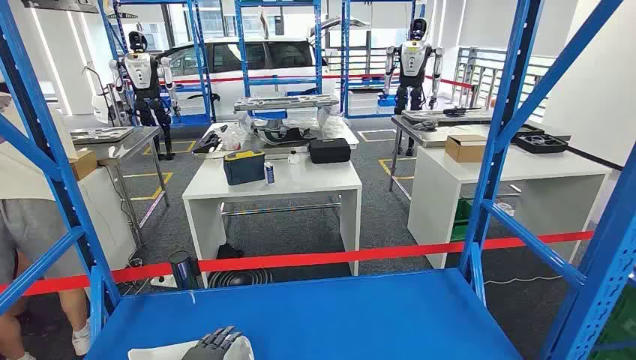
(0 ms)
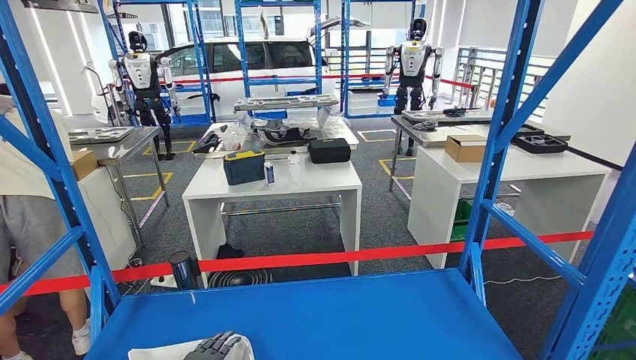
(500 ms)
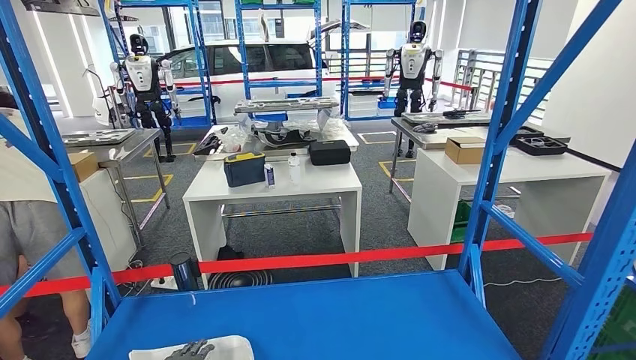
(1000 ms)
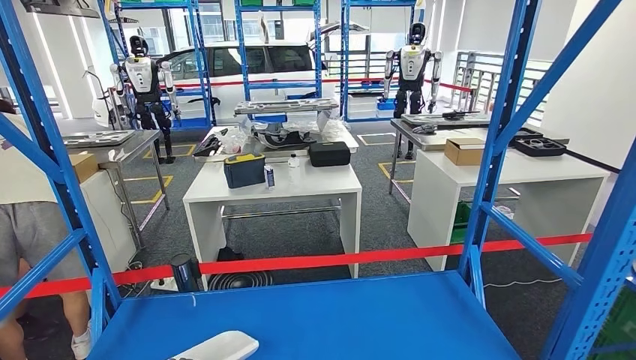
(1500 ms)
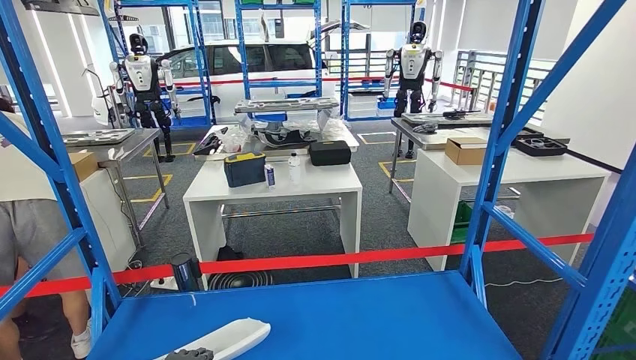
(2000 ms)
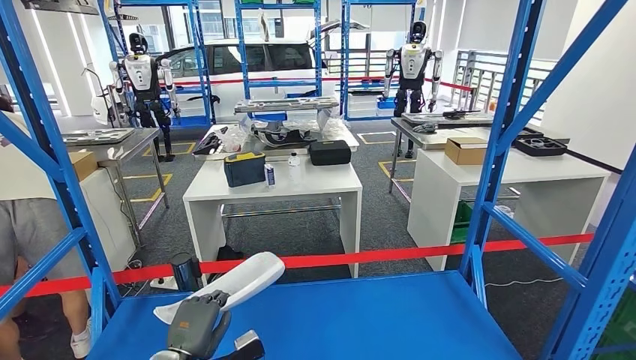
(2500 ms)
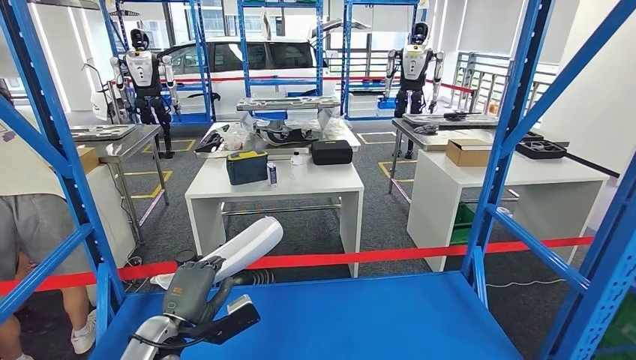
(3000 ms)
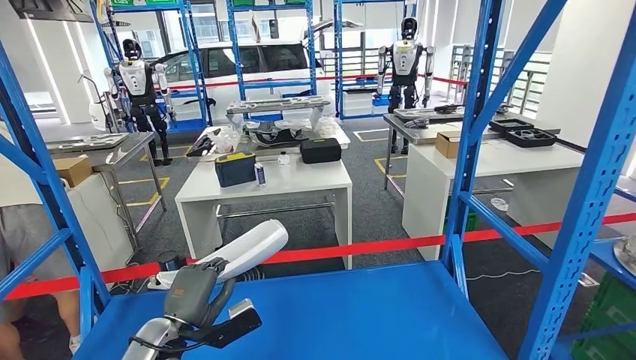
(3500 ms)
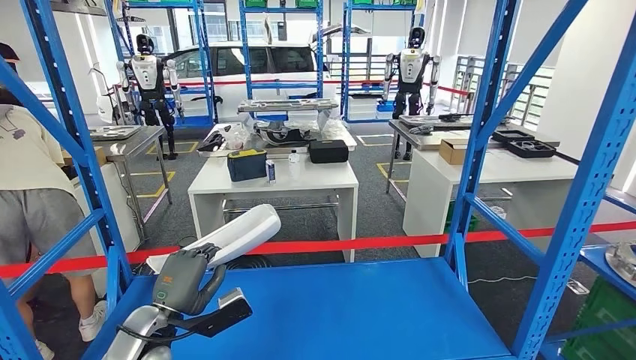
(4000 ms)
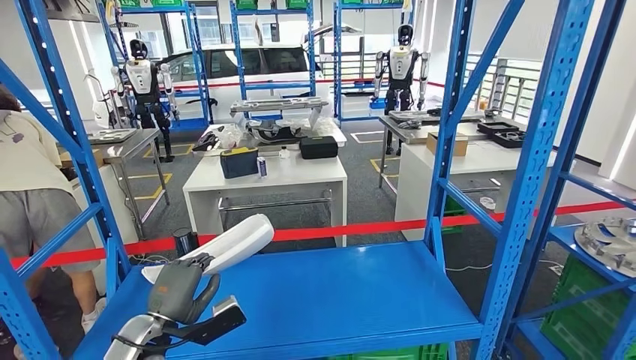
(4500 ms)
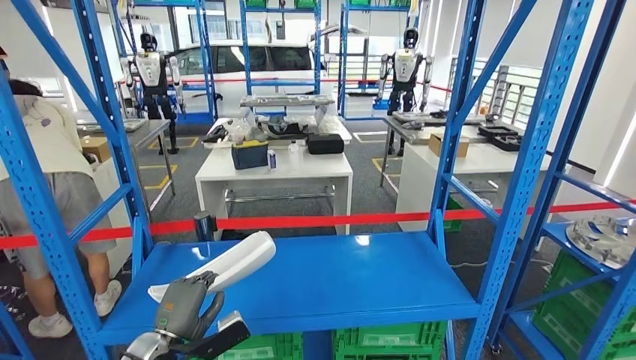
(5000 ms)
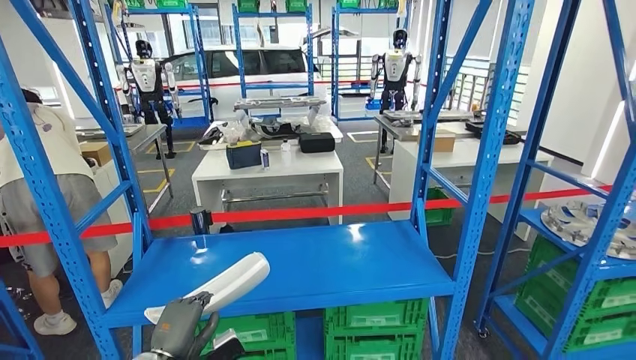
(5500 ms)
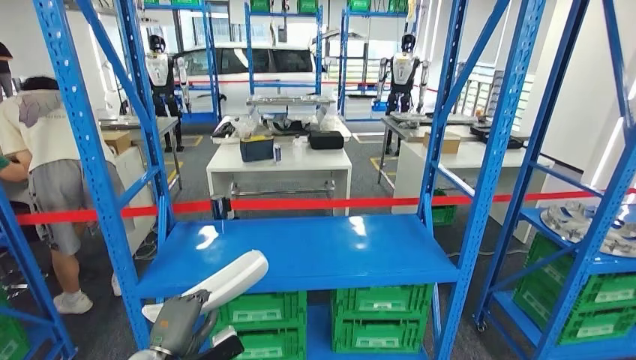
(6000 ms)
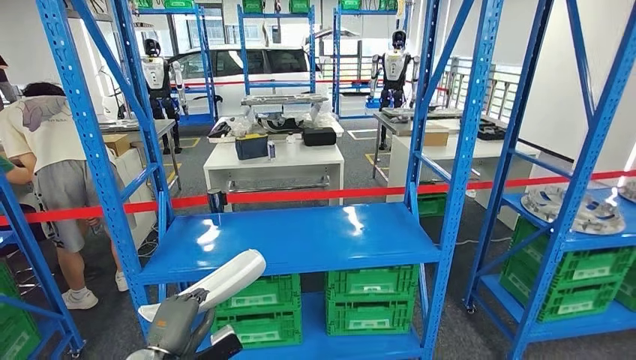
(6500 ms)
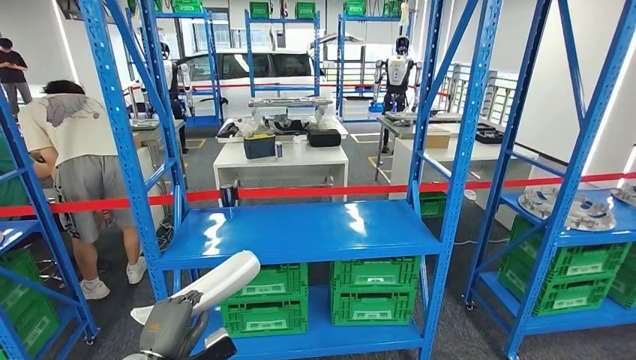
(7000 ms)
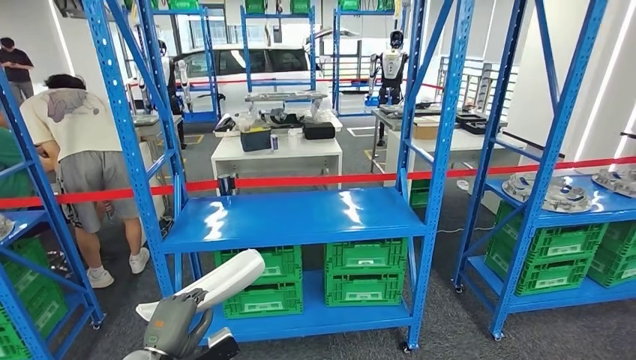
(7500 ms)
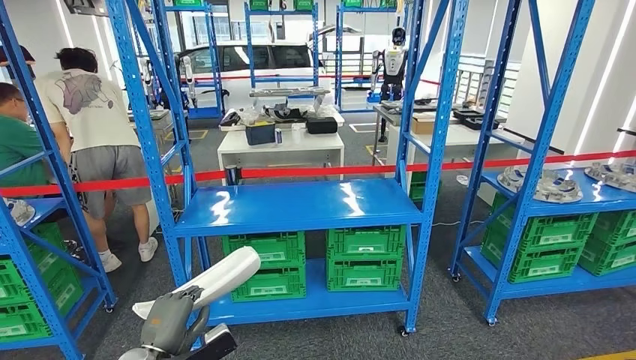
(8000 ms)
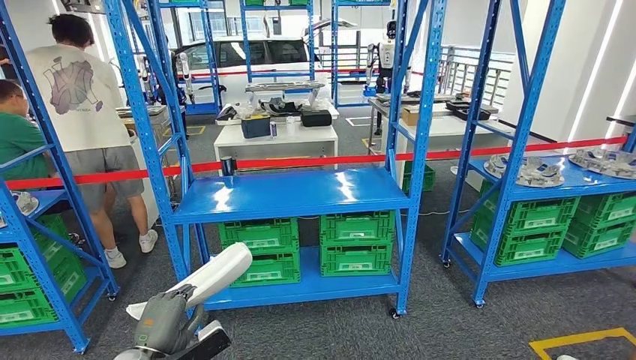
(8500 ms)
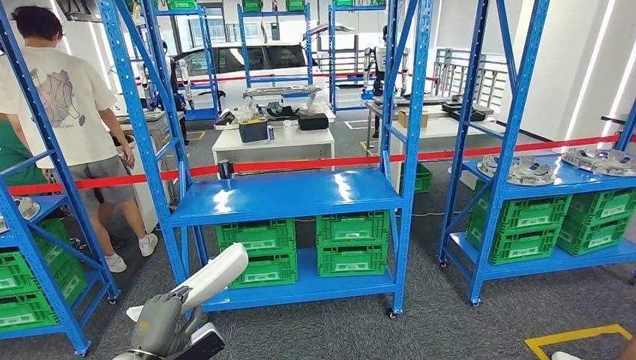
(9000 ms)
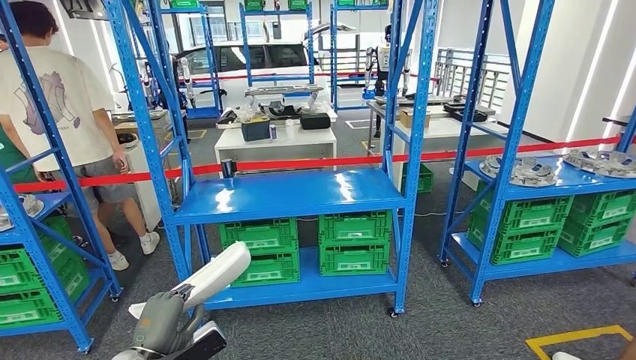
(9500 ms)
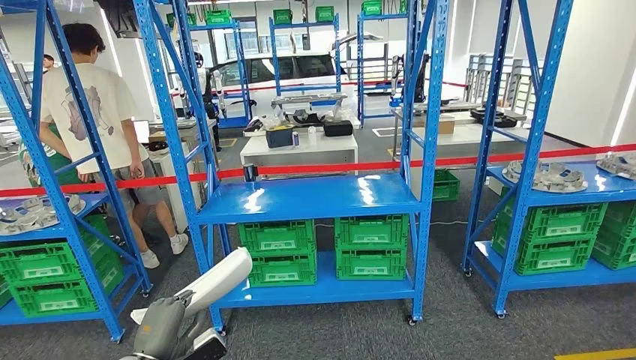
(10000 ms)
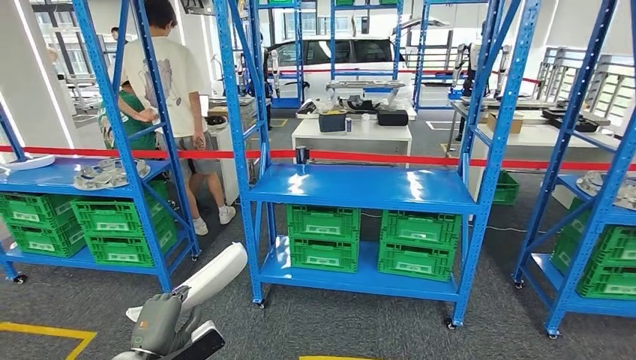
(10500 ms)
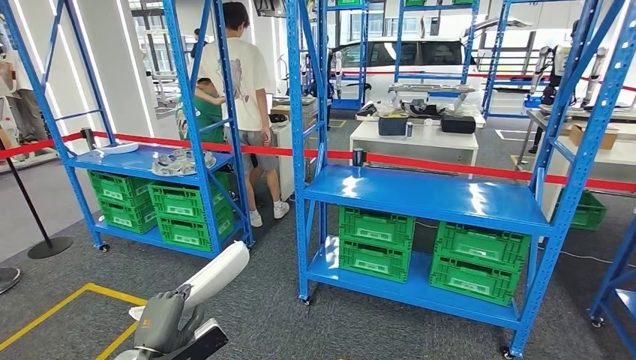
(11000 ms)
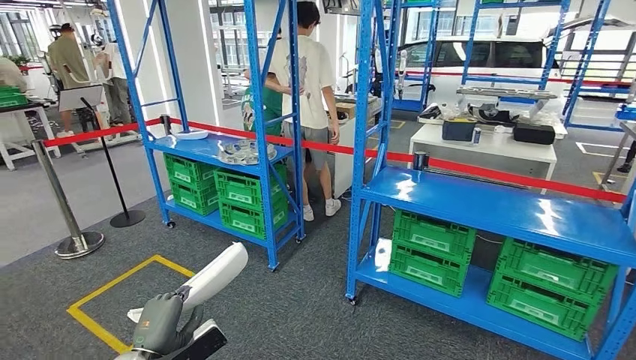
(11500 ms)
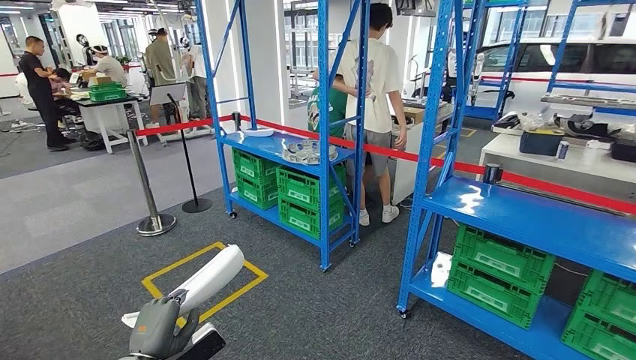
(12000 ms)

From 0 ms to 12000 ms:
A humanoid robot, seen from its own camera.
Step, from 0 ms to 2000 ms: Pick up the small component from the shelf.

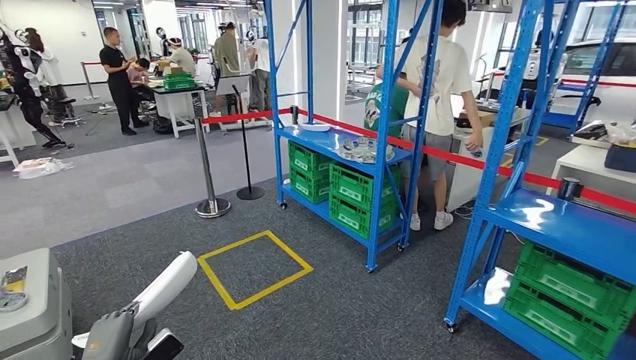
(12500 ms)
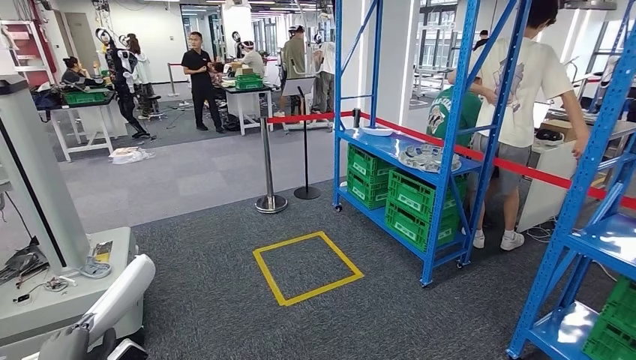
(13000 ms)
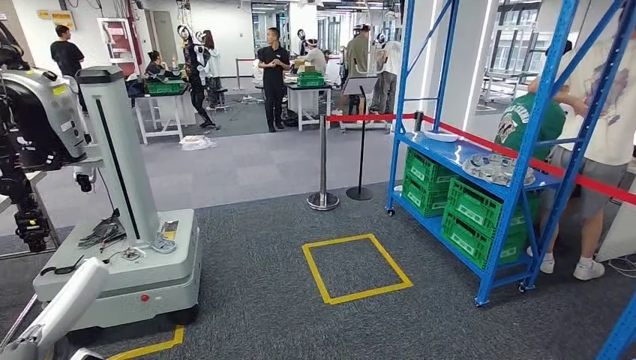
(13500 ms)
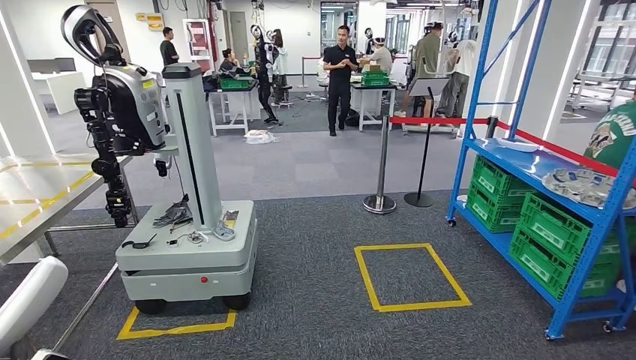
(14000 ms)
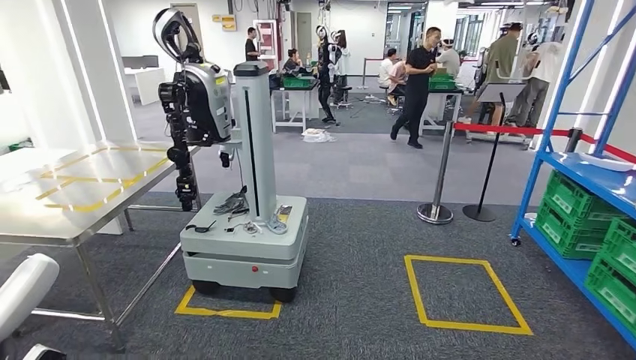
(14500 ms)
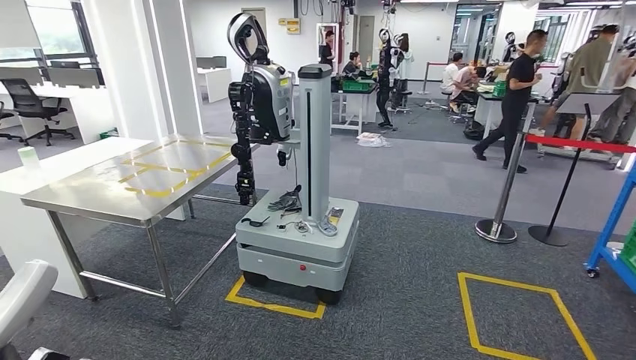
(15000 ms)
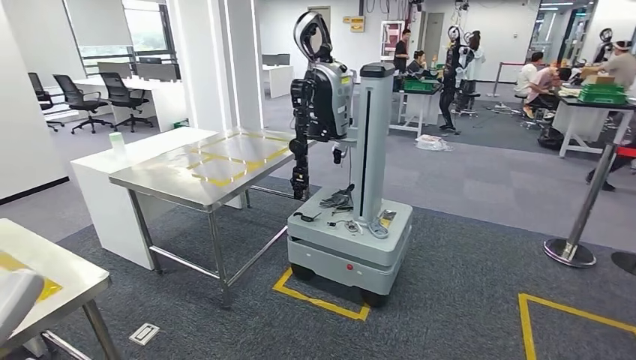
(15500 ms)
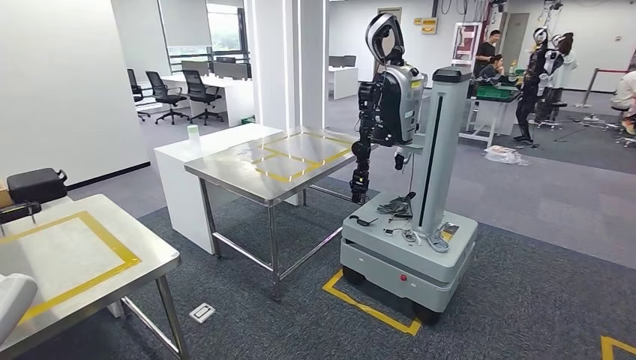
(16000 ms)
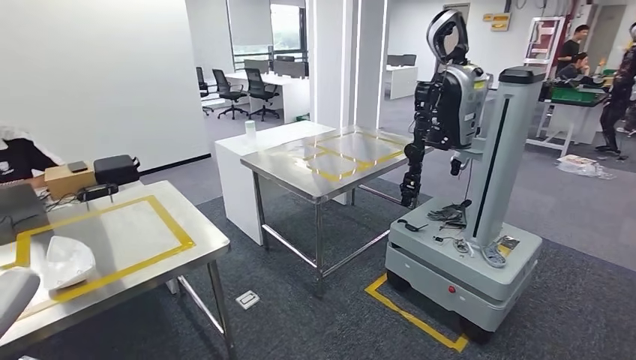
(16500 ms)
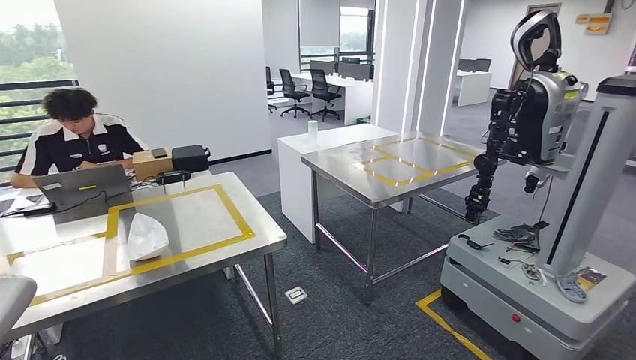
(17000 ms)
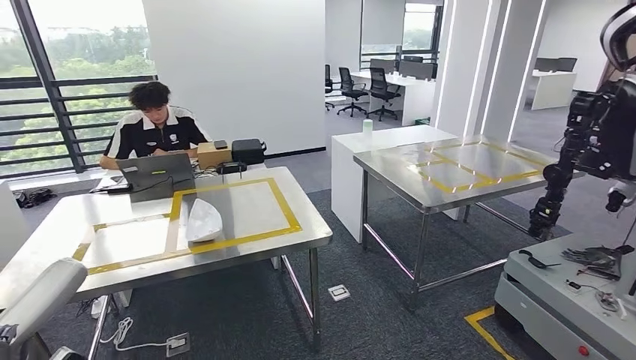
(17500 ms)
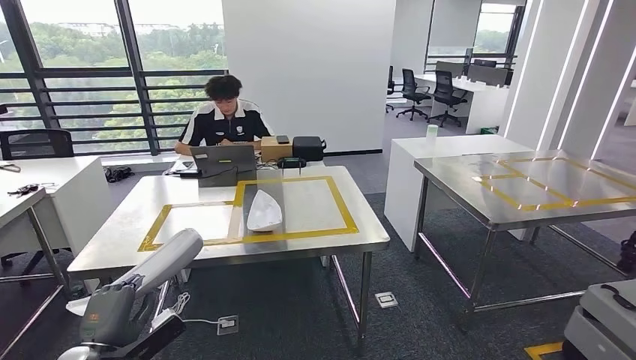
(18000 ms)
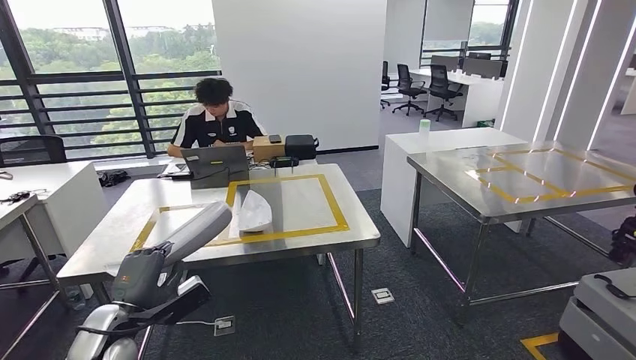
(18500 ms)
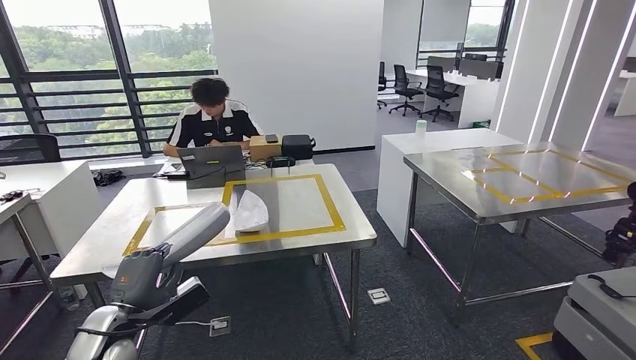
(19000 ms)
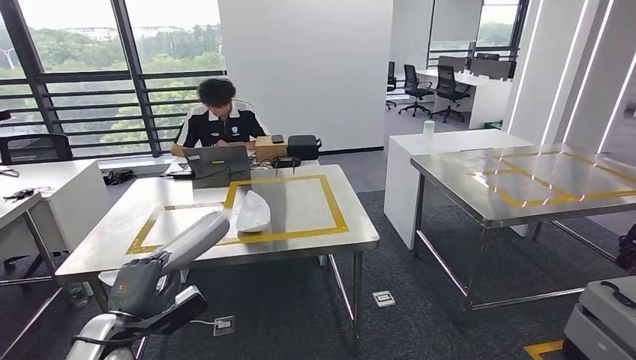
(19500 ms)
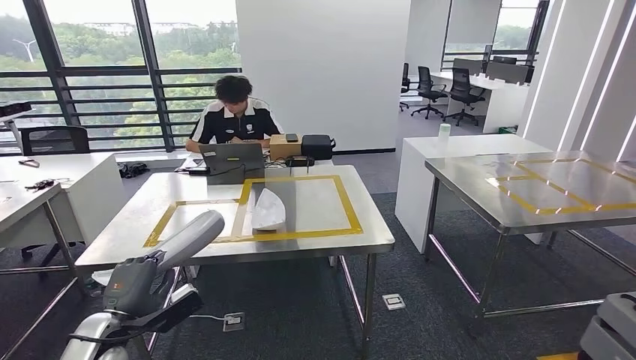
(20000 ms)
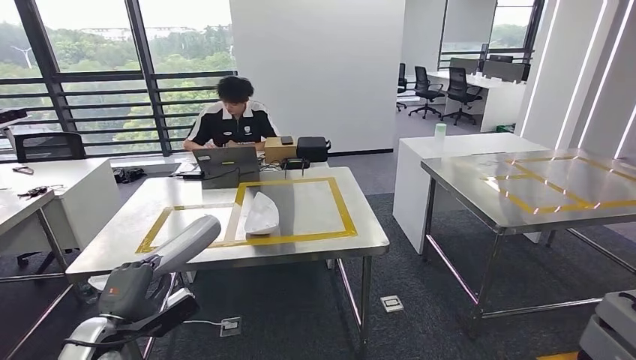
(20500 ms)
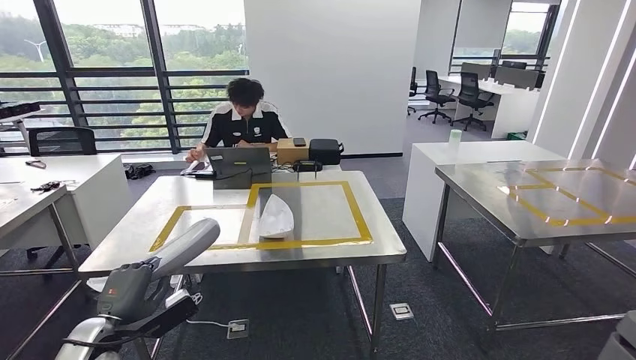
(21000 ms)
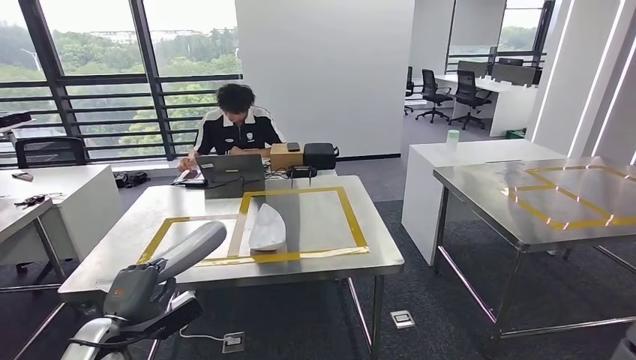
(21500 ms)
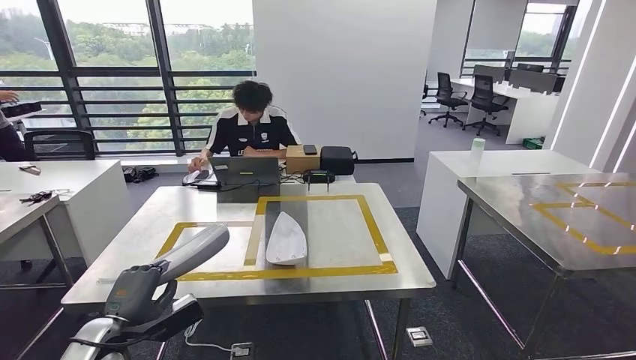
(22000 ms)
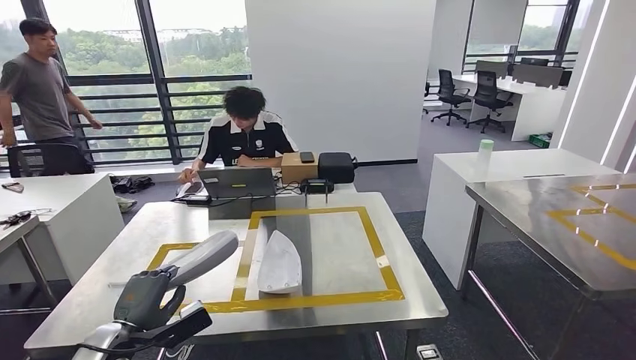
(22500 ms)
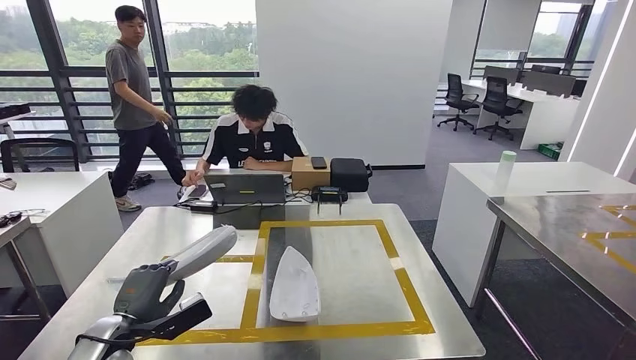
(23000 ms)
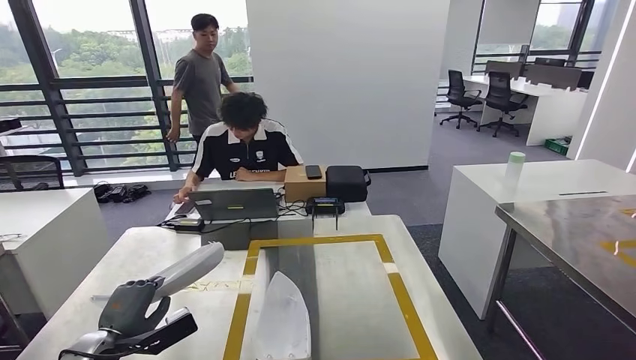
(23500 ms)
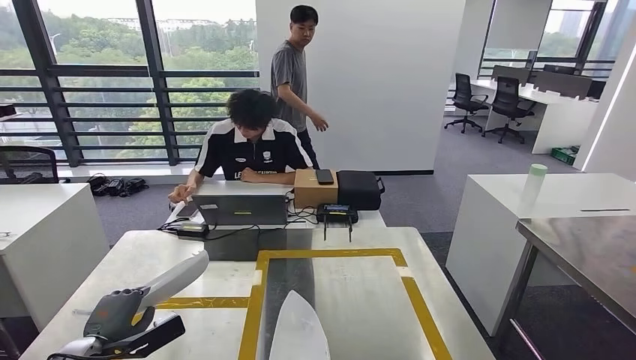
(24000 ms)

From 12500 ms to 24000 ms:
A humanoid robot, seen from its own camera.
Step, from 12500 ms to 17000 ms: Bring the small component to the front of the workbench.
